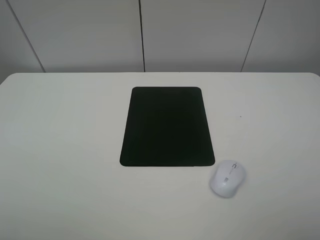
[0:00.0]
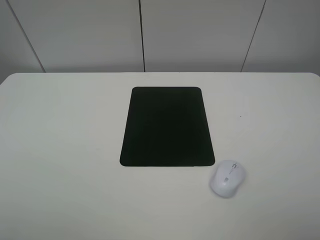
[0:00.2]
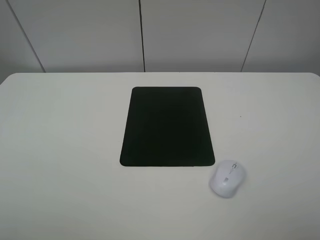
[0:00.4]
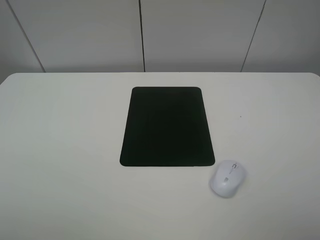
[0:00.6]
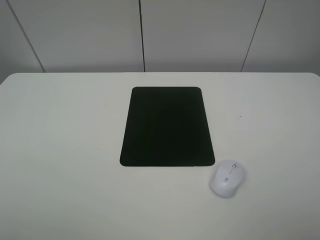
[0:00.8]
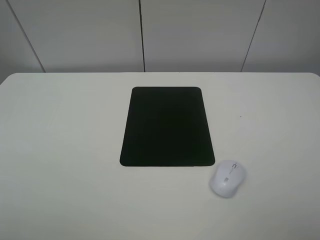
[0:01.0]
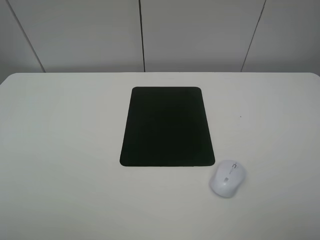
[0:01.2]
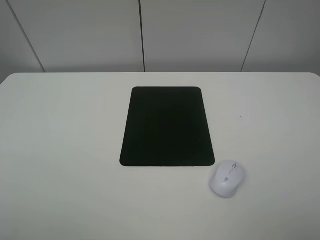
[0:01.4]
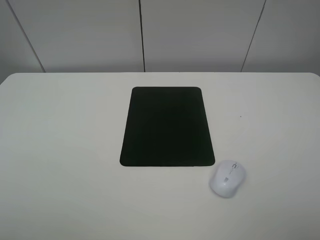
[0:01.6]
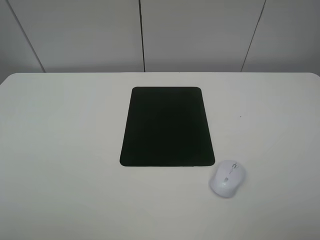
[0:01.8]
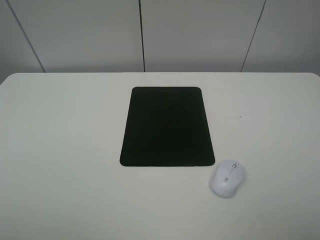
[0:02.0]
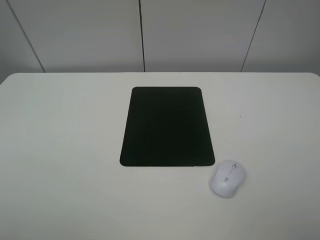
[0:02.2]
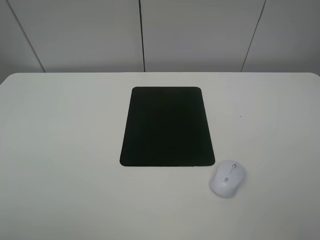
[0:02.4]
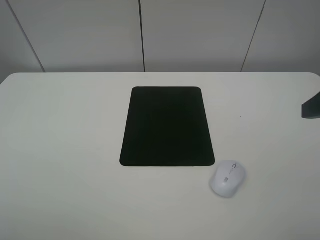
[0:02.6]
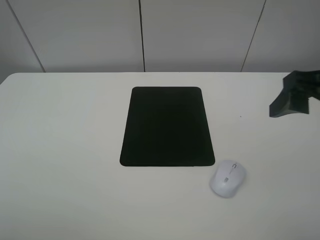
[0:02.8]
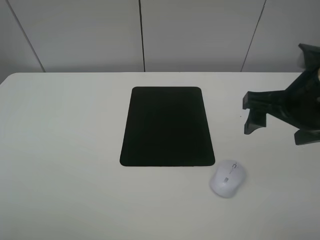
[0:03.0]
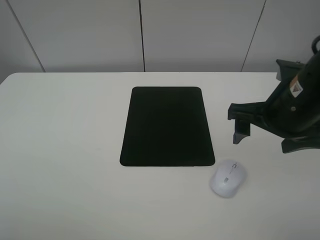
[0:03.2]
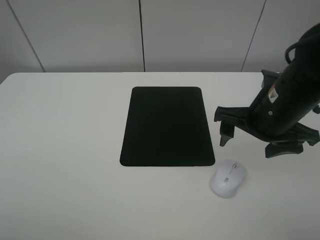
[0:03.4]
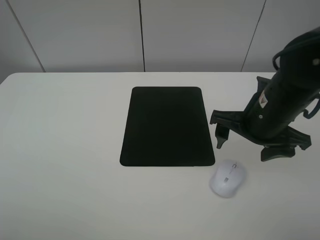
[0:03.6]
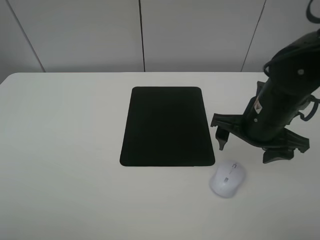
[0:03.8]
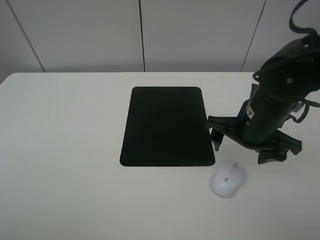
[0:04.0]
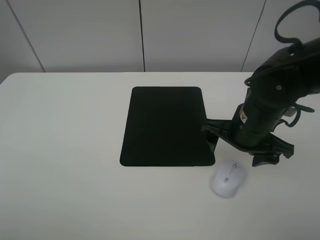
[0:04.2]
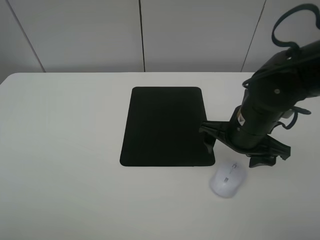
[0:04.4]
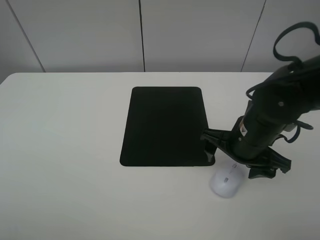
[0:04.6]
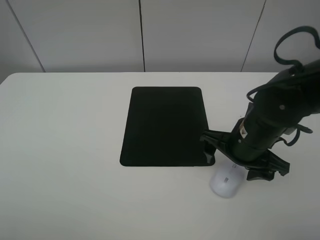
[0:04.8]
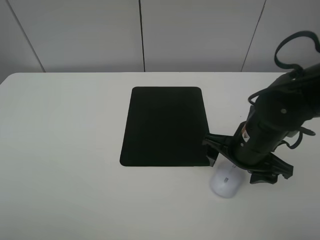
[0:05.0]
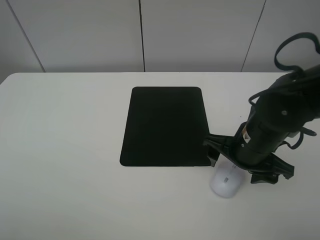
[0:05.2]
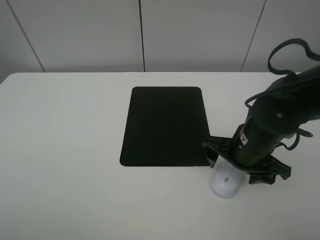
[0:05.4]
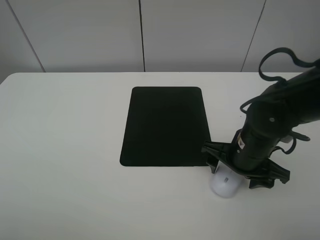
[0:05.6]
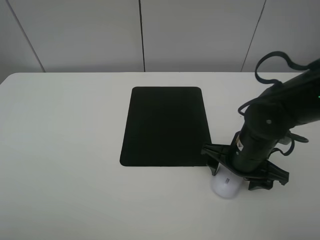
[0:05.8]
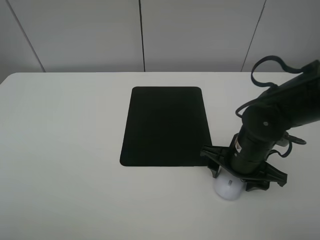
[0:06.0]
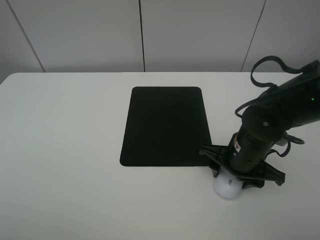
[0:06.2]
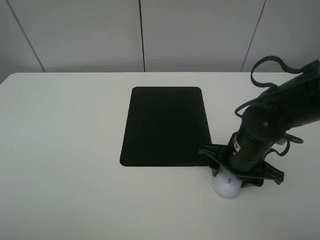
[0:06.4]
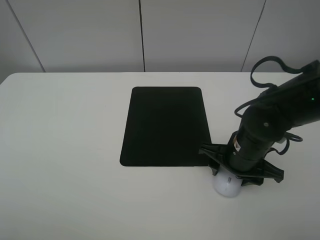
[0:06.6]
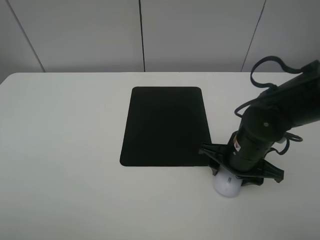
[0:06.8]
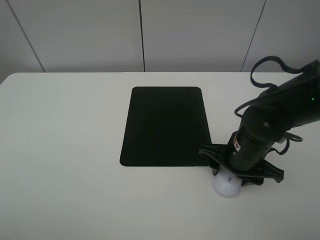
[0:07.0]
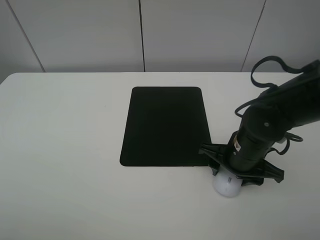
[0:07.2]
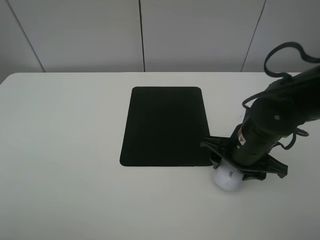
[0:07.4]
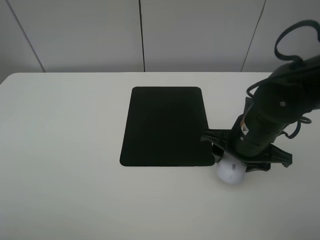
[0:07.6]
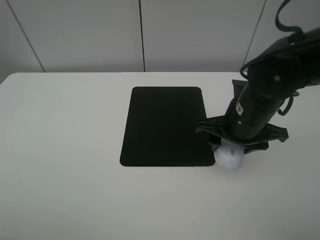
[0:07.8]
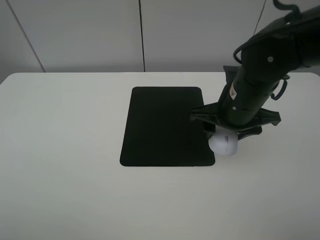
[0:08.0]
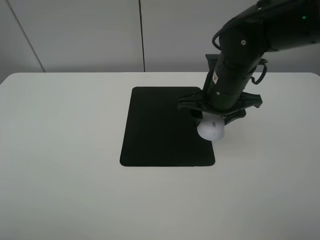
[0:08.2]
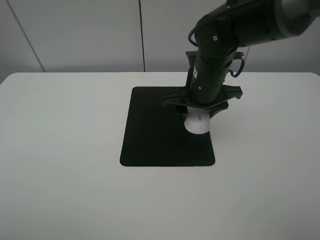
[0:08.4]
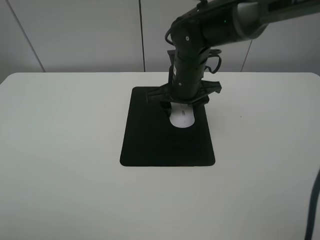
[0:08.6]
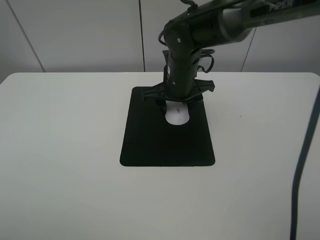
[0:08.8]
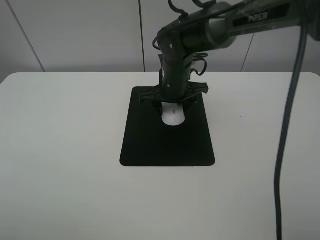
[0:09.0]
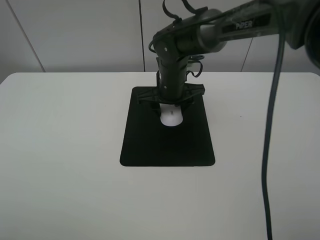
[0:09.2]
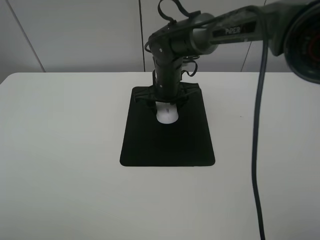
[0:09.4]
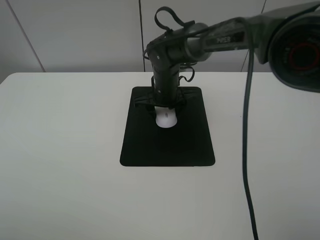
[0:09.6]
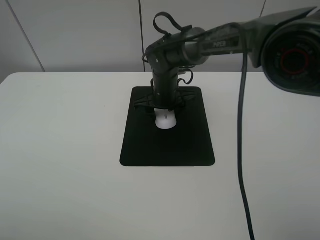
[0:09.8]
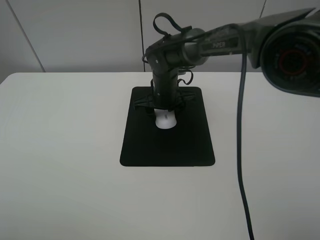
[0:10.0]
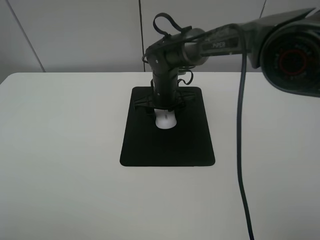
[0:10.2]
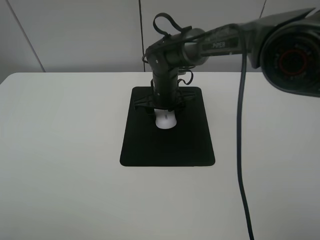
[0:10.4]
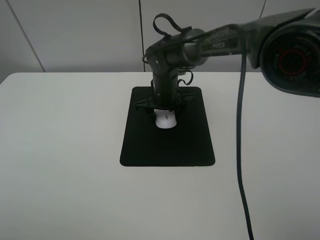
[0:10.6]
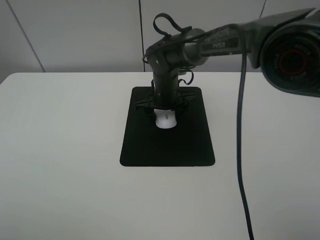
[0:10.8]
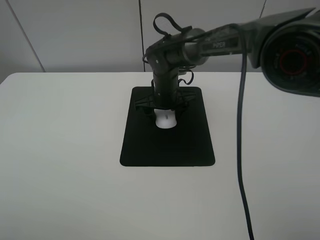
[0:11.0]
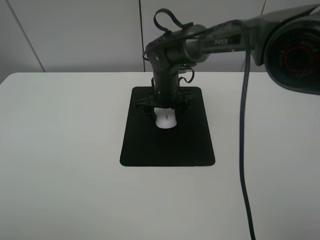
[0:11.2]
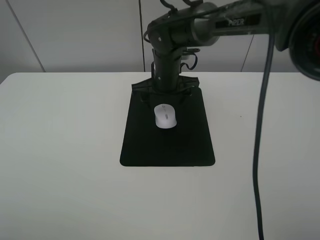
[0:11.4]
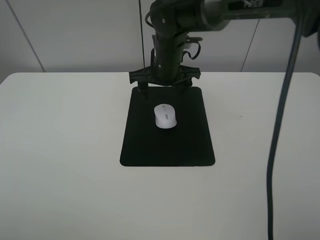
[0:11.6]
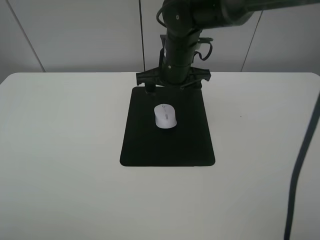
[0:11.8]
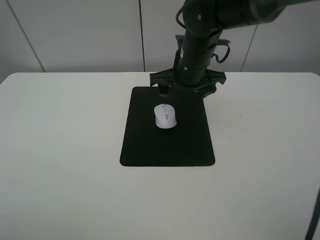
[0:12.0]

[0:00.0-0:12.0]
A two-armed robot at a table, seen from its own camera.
Step, 0:00.0 to 0:06.8: Grasp the mouse with the right gripper.
Step, 0:07.0 to 0:10.6: Place the mouse on the mouse mat with the right gripper.
0:00.0 to 0:01.6: Both grippers stay about where they are.
0:01.6 to 0:03.0: The right gripper shifts about 20 cm forward and to the left.
0:03.0 to 0:04.4: The right gripper travels downward by about 10 cm.
0:04.4 to 0:06.0: The right gripper is displaced downward by approximately 5 cm, and closes up.
0:06.0 to 0:07.6: There are only small adjustments of the grippers.
0:07.6 to 0:09.0: The right gripper goes roughly 20 cm forward and to the left.
0:09.0 to 0:10.4: The right gripper shifts by roughly 5 cm.
0:10.4 to 0:12.0: The right gripper heads upward and to the right, covering some 10 cm, and opens up.

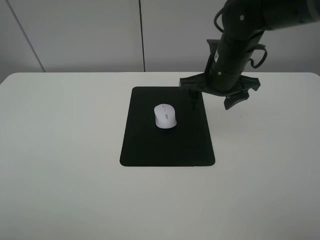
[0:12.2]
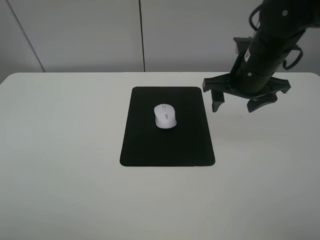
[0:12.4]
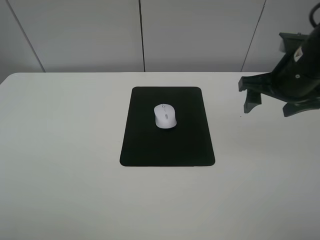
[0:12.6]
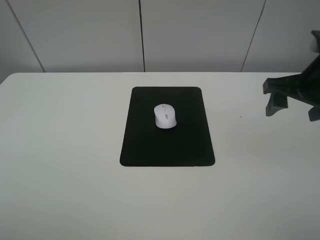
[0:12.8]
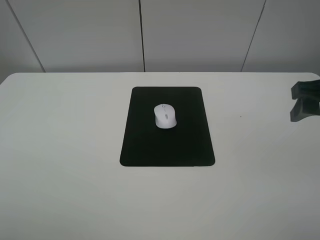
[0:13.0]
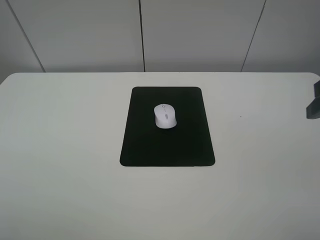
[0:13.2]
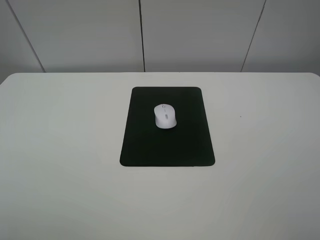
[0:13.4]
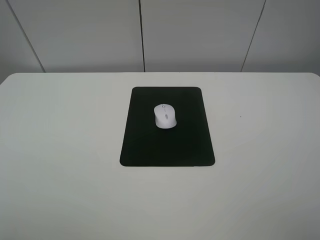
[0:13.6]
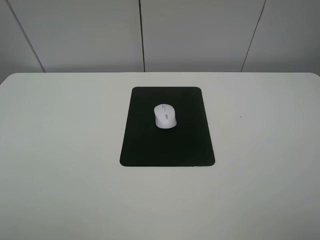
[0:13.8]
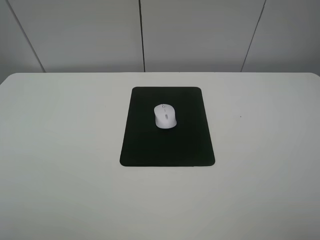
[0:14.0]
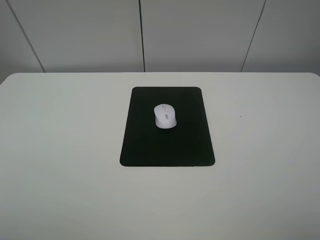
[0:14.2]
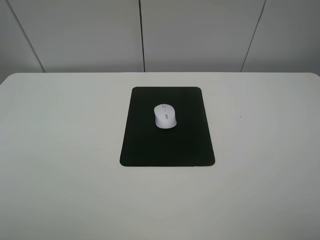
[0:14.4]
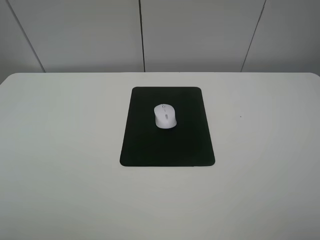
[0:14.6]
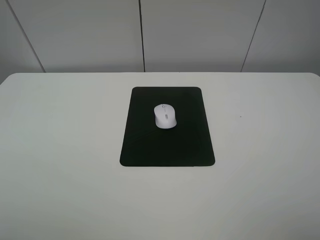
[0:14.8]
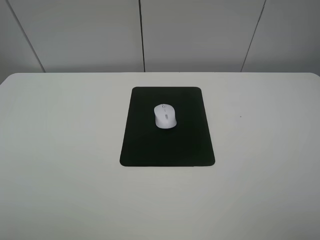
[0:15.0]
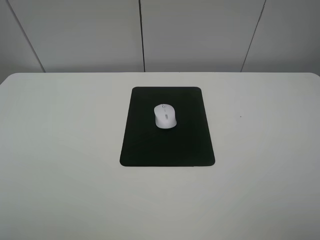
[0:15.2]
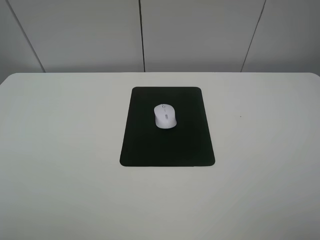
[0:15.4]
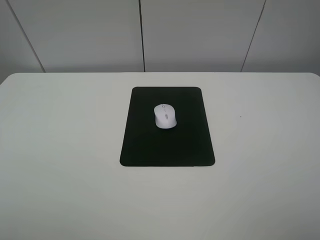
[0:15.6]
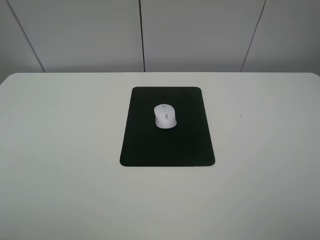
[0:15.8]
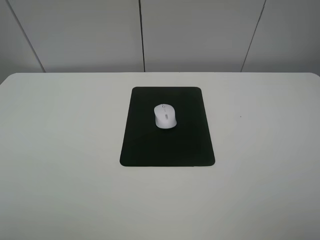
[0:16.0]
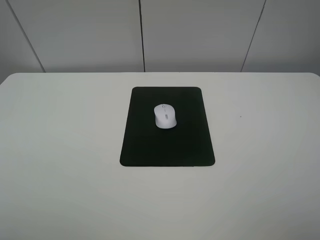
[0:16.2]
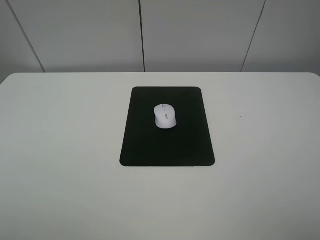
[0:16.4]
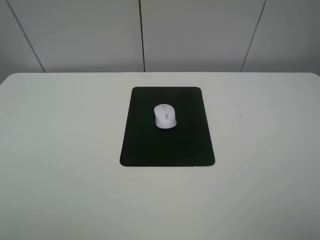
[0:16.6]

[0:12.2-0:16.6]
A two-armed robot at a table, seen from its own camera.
0:12.2 to 0:13.6: The right gripper goes some 35 cm backward, to the right and upward.
0:15.2 to 0:16.6: The two grippers keep their place.

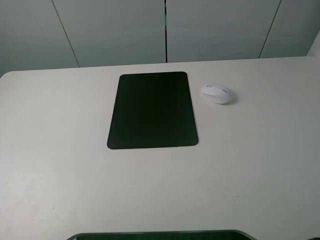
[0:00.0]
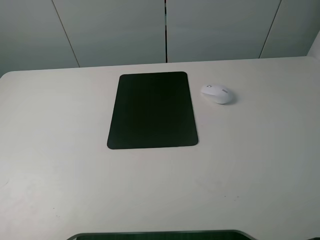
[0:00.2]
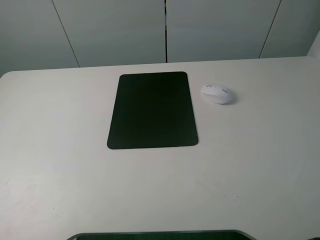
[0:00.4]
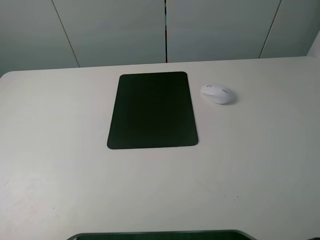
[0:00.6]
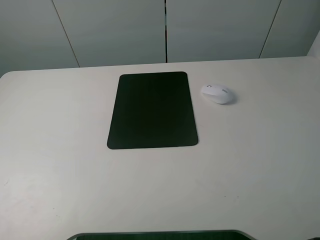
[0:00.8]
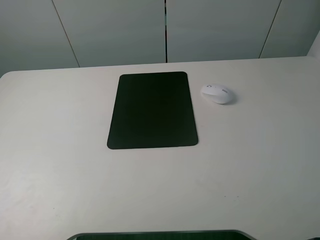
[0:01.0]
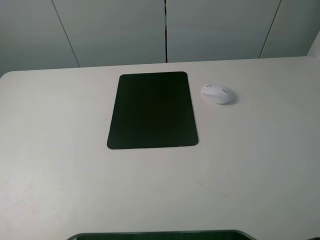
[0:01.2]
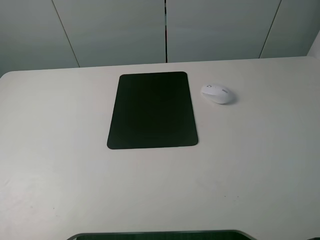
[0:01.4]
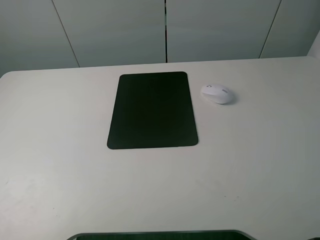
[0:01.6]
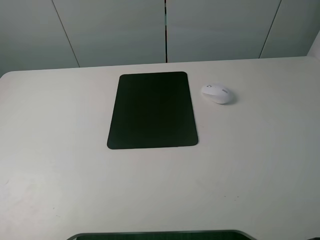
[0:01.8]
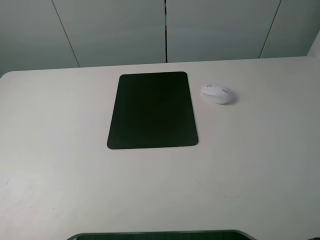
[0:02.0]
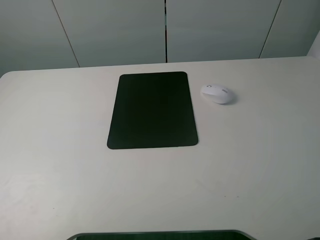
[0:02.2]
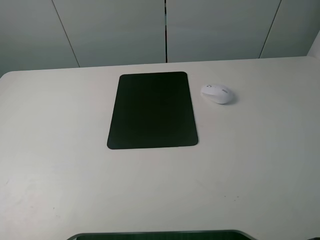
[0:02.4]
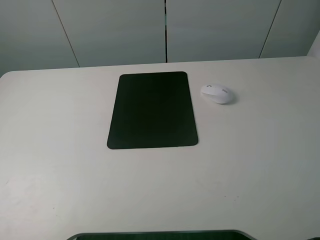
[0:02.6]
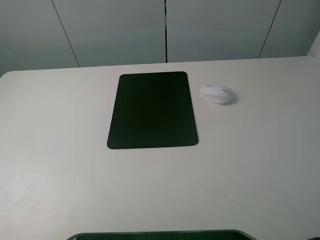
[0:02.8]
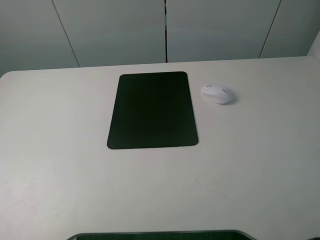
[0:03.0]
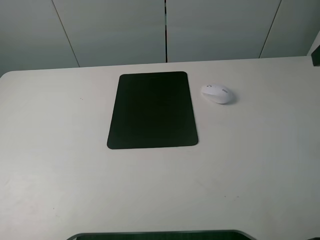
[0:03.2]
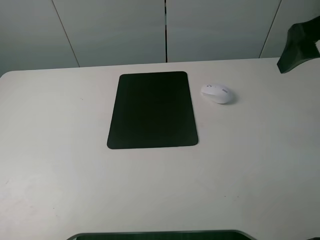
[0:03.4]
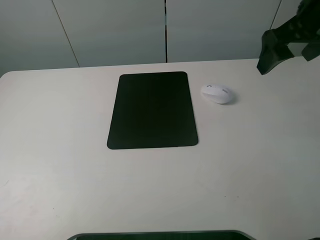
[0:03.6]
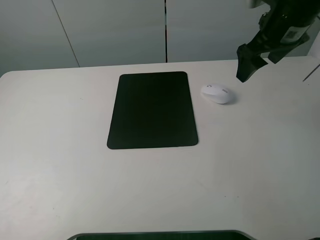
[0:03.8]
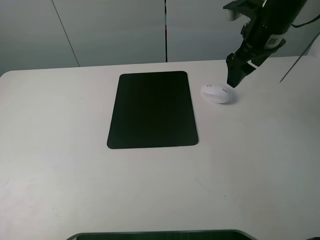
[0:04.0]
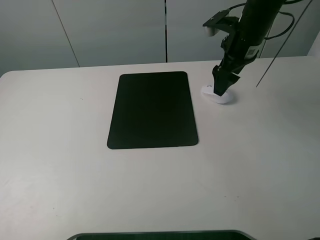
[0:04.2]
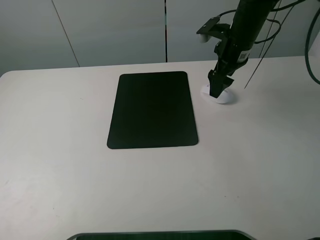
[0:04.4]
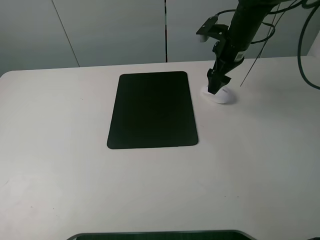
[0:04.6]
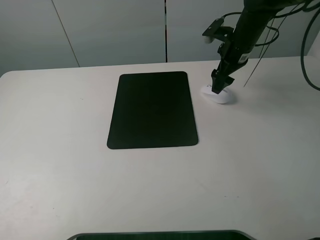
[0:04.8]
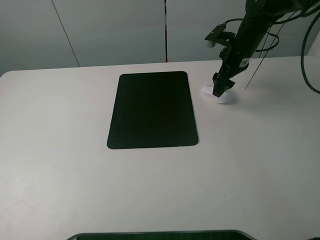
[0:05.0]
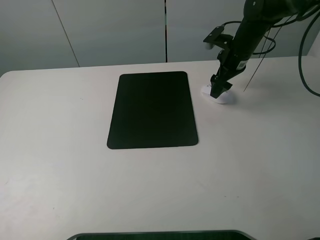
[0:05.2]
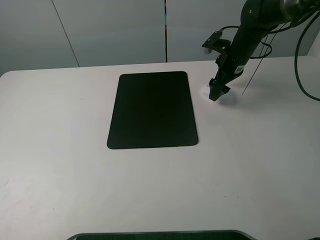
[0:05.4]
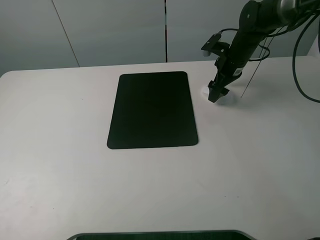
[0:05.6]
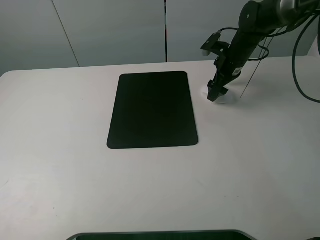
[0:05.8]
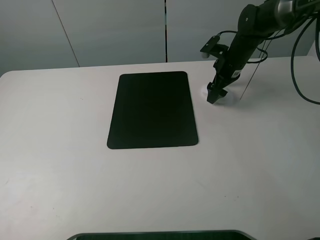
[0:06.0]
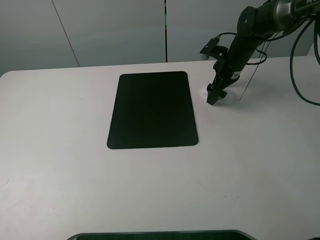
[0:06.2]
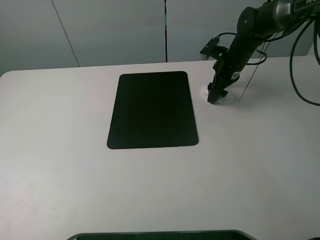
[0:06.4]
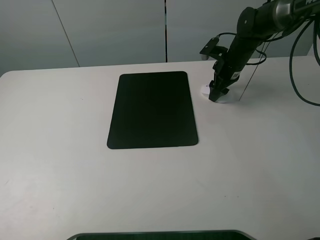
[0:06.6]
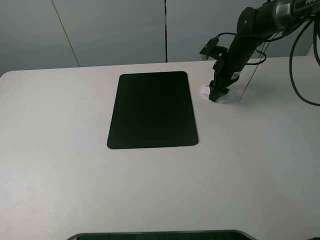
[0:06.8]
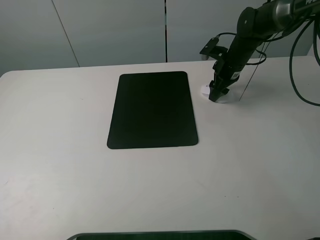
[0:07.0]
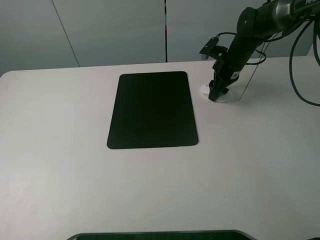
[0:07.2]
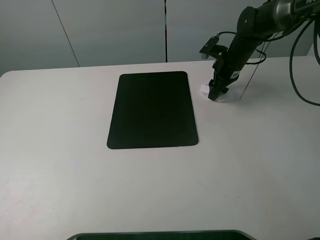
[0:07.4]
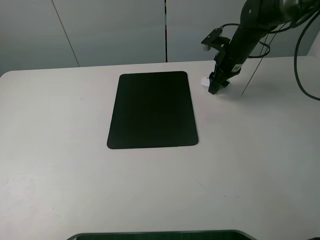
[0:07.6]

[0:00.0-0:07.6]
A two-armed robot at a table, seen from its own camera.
Step, 0:00.0 to 0:07.4: Grasp the mouse with the right gripper.
0:00.0 to 0:01.6: Both grippers stay put.
0:03.0 to 0:04.6: The right gripper shifts some 30 cm forward and downward.
0:04.6 to 0:06.0: The right gripper travels downward by some 5 cm.
0:06.0 to 0:07.6: The right gripper closes.
